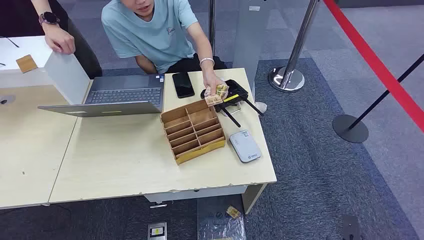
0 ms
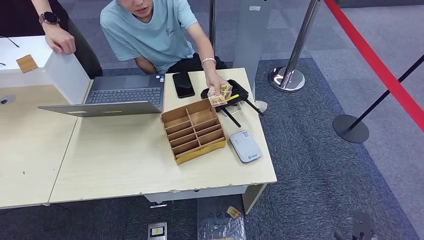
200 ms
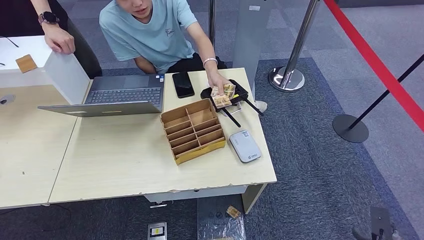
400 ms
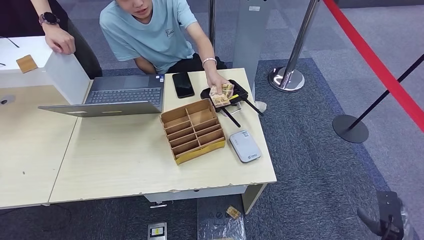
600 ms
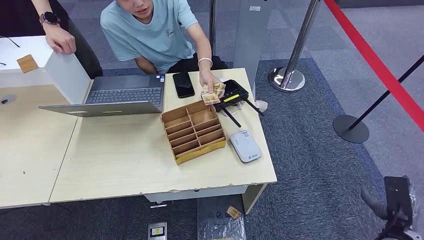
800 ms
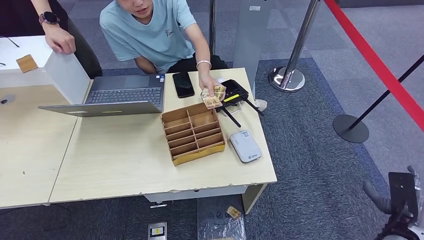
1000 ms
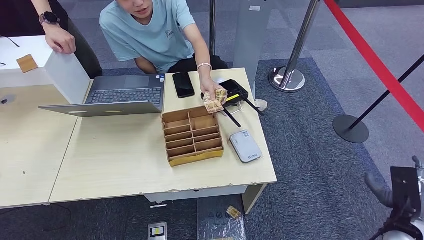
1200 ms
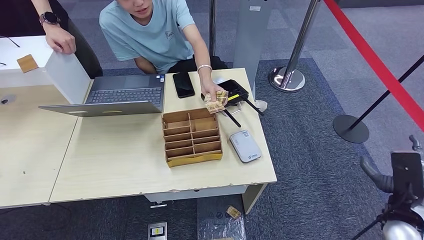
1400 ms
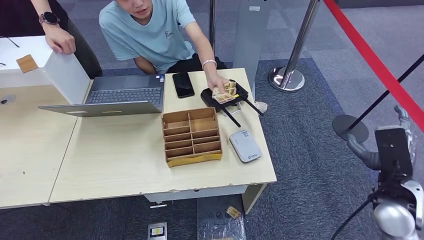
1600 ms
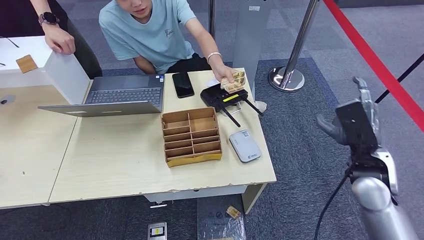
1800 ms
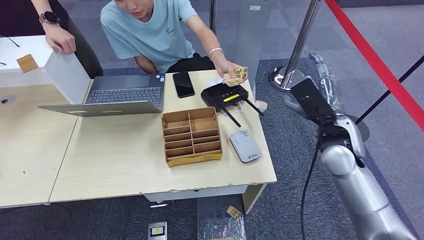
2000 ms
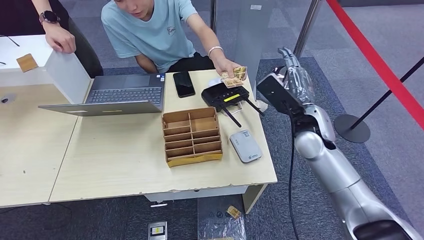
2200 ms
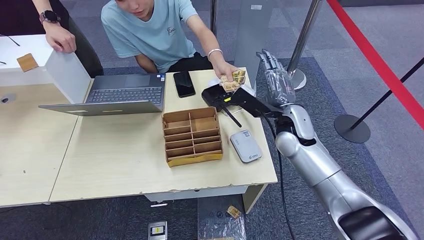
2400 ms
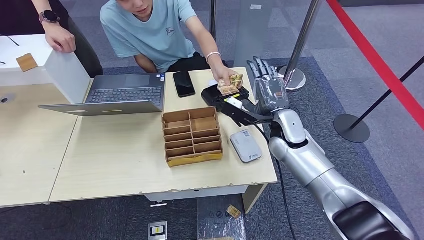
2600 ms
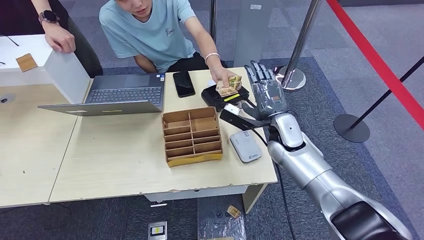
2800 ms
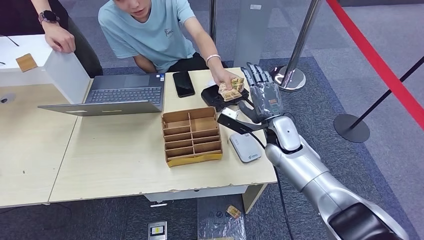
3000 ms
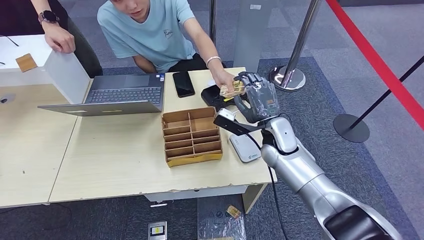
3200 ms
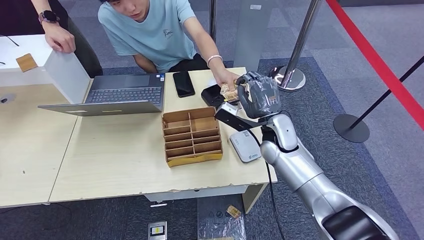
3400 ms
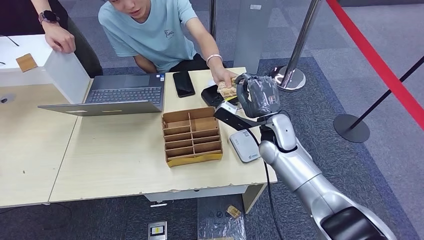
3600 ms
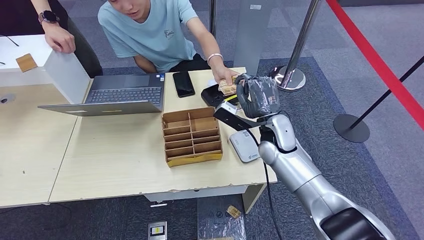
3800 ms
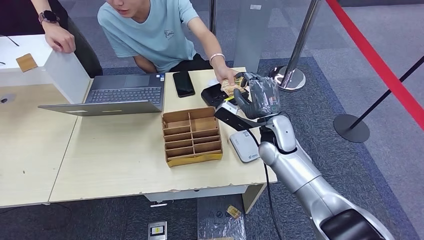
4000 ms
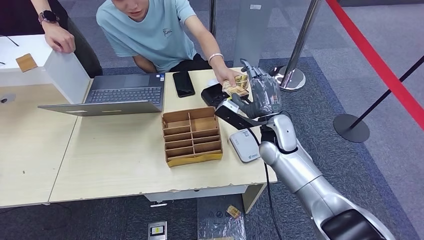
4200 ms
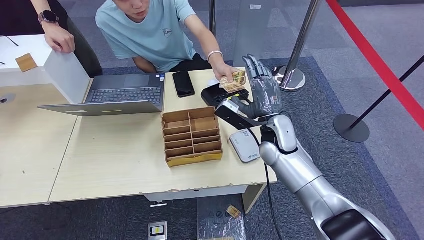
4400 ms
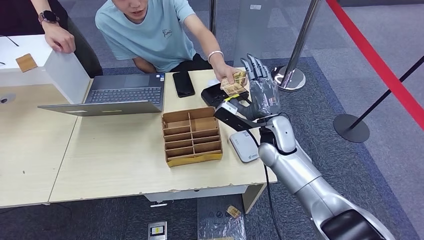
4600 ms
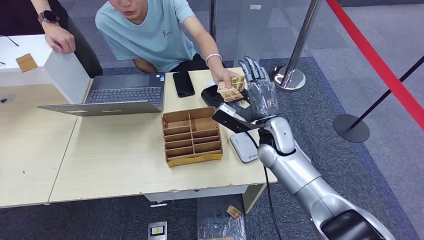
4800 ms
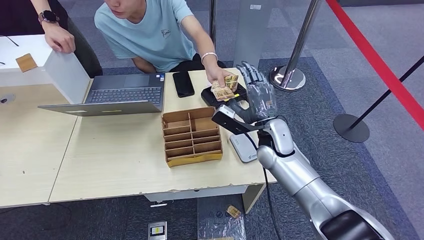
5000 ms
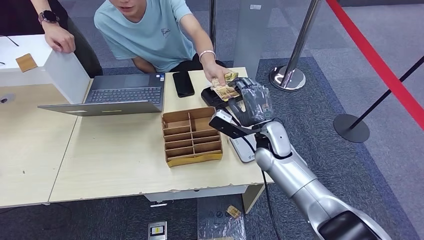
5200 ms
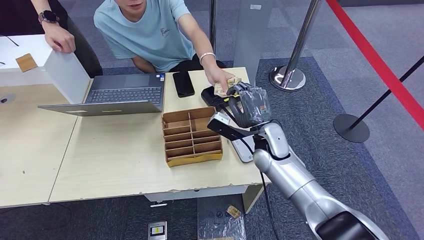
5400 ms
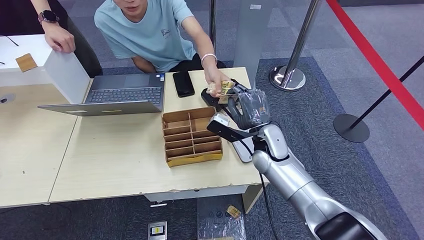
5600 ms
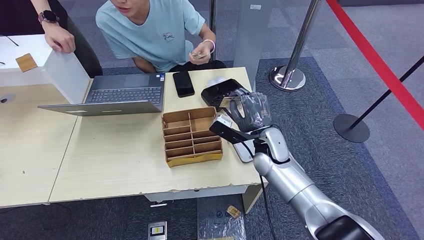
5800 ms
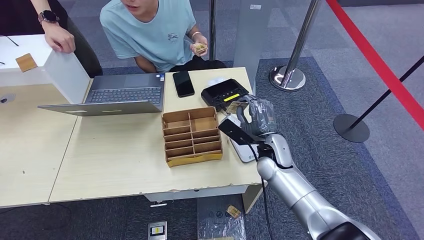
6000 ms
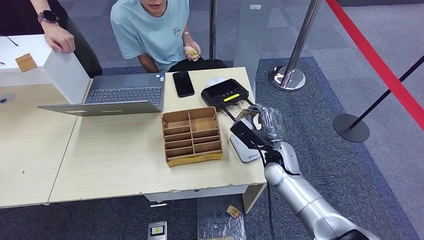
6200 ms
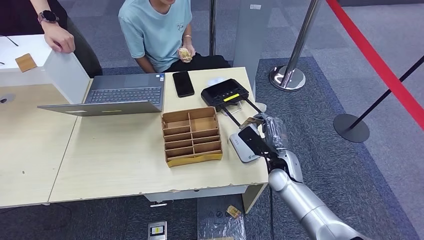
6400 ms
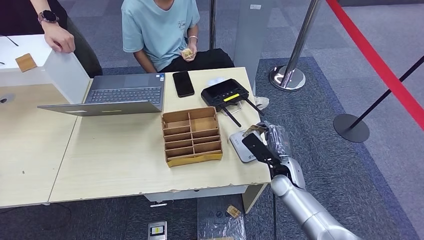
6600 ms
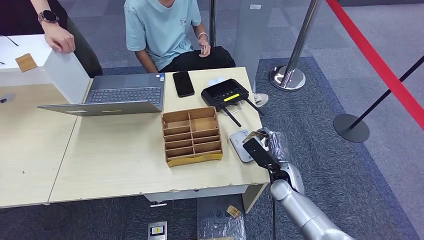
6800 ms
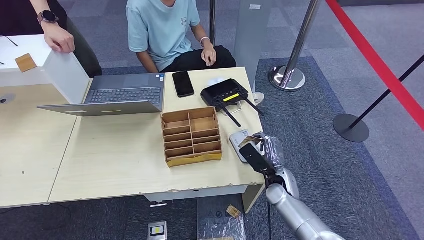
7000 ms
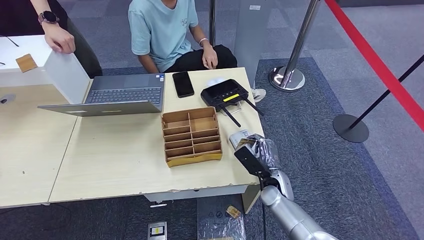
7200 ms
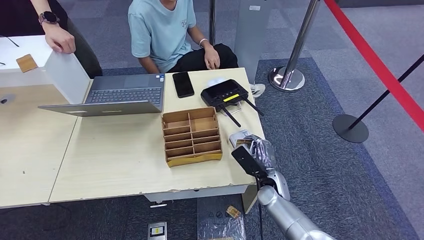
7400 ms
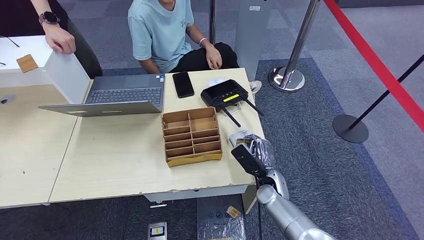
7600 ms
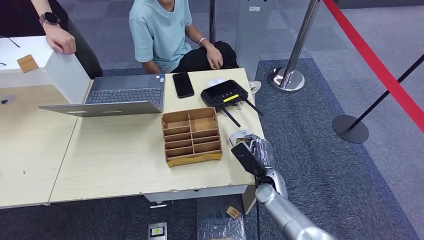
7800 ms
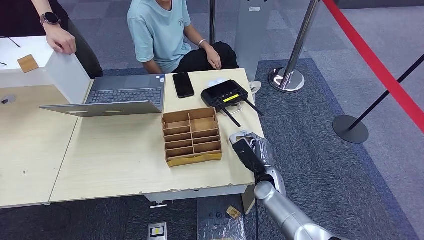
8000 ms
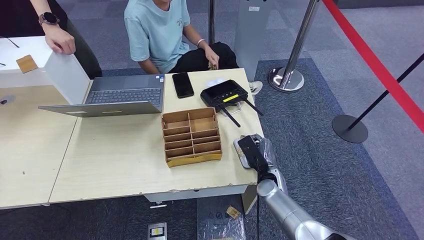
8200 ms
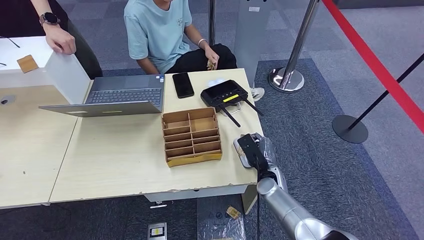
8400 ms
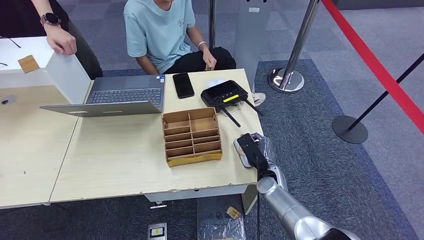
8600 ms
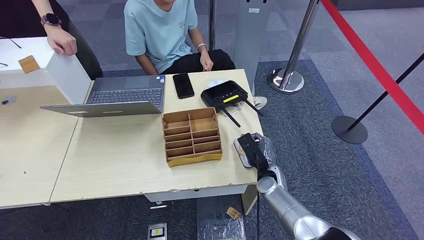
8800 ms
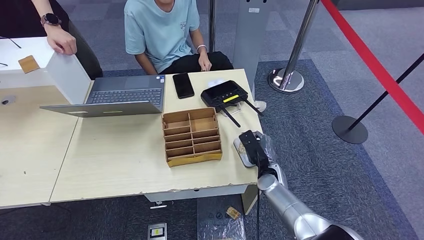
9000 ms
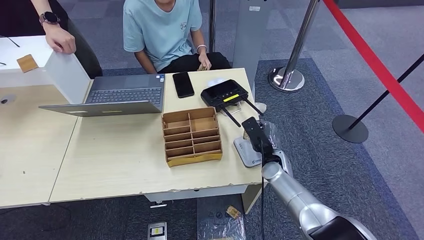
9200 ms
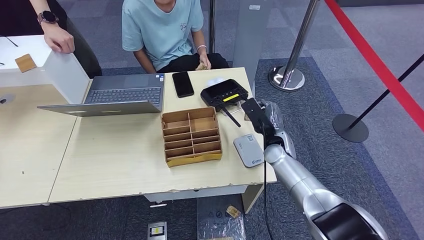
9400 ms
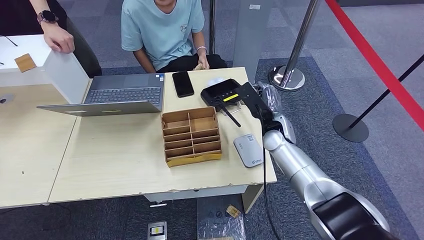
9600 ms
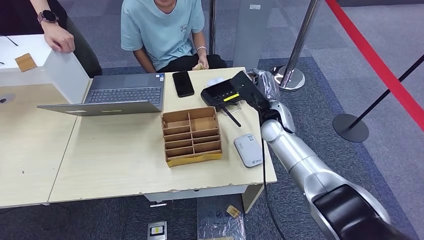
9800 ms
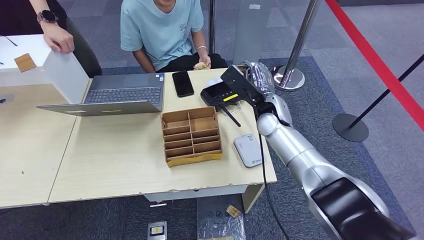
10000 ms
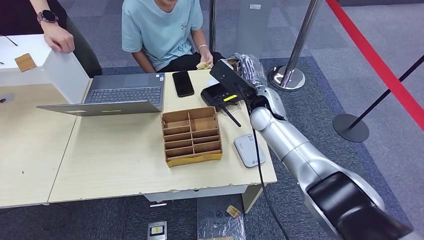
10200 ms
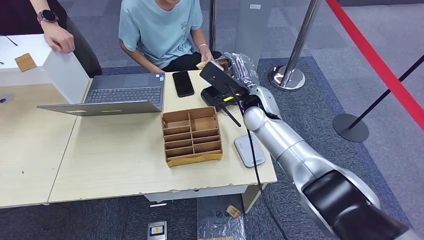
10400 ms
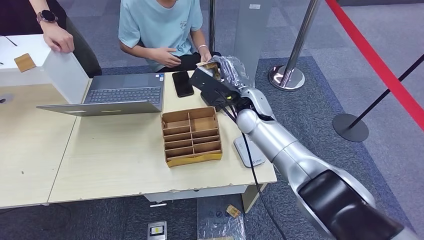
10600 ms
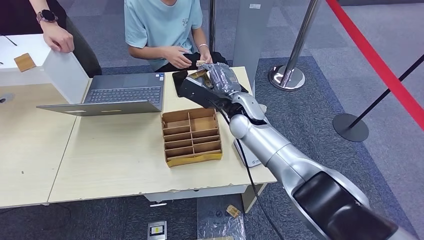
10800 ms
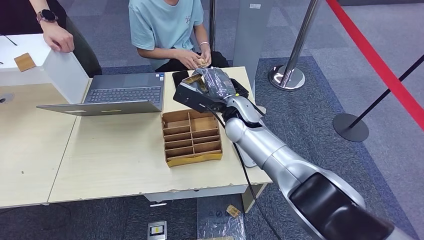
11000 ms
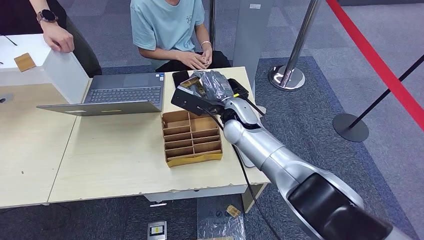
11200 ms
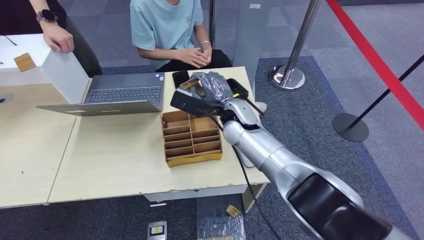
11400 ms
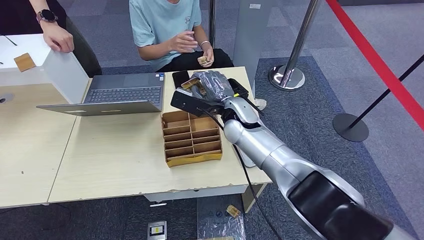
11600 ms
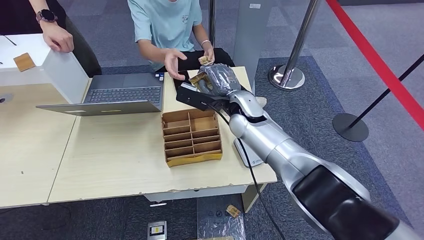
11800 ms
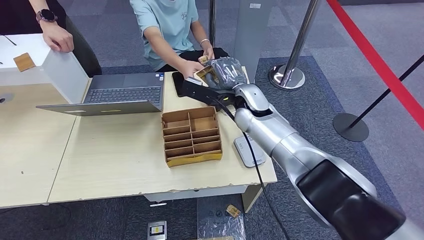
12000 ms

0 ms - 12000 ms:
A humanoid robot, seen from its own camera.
Step, 0 ms - 5800 ms: Take the ID card from the person's hand.
Step, 6000 ms - 8800 ms: Place the ID card on the card reader.
1600 ms - 3000 ms: The right hand is displaced forward and to the left by approximately 25 cm.
3000 ms - 4400 ms: The hands move only a little.
4400 ms - 6000 ms: The right hand goes some 5 cm downward.
6000 ms - 7600 ms: The right hand travels downward and backward by approximately 15 cm.
7600 ms - 9000 ms: The hands stay close to where they were, moving slightly.

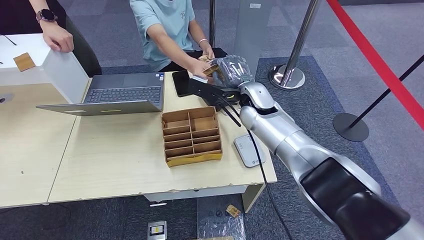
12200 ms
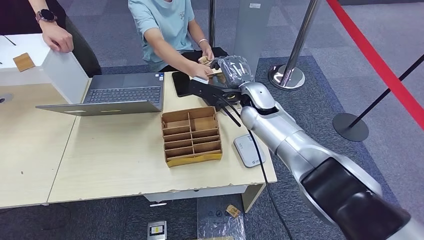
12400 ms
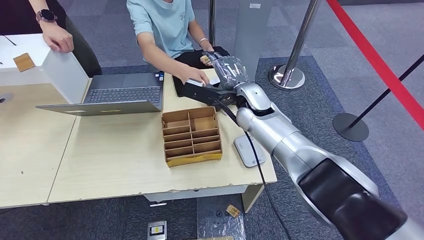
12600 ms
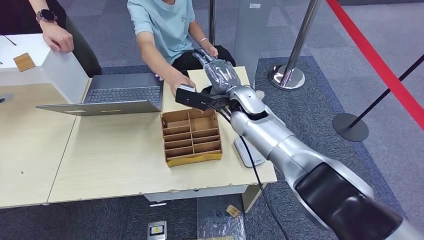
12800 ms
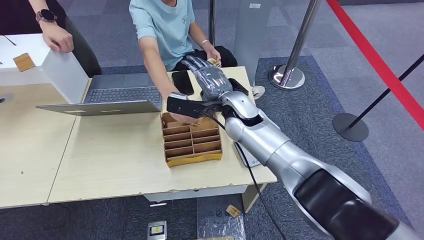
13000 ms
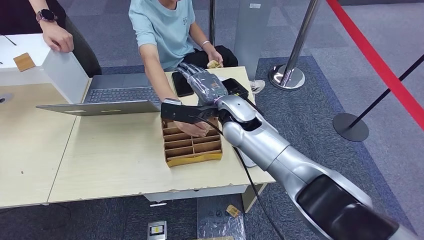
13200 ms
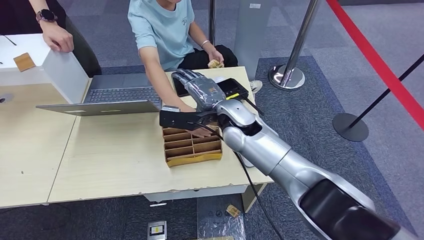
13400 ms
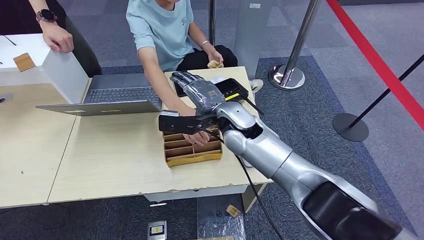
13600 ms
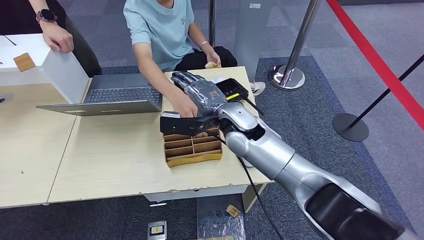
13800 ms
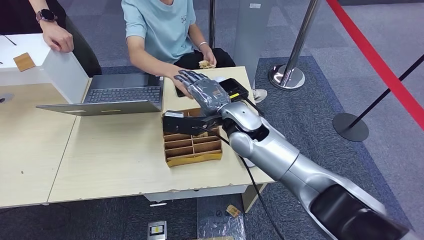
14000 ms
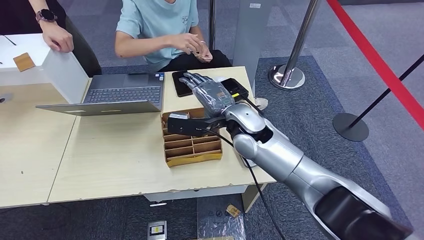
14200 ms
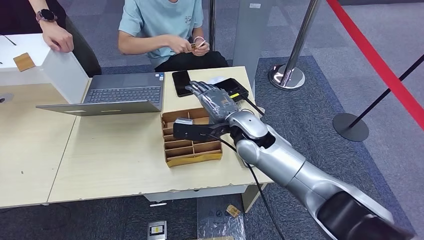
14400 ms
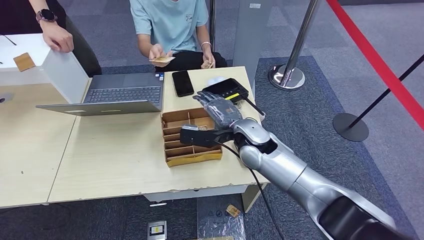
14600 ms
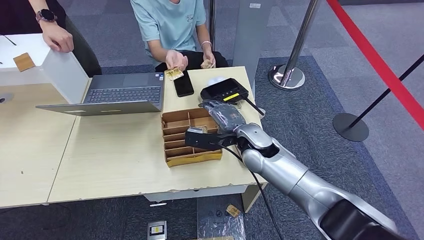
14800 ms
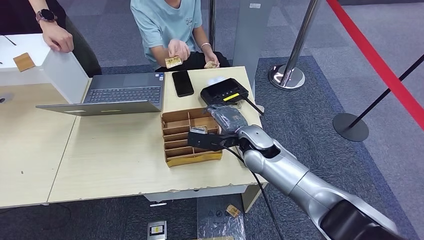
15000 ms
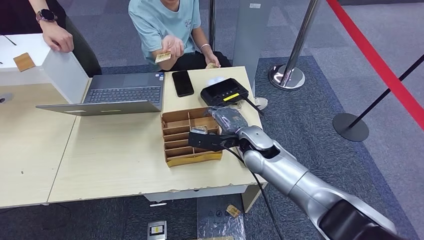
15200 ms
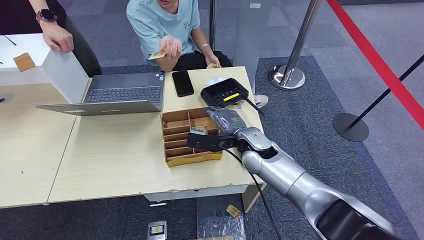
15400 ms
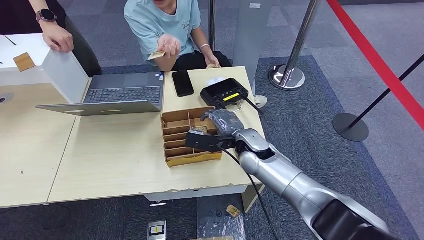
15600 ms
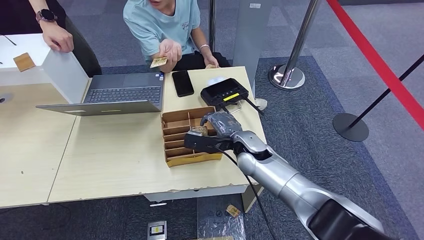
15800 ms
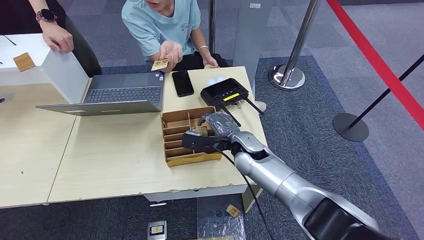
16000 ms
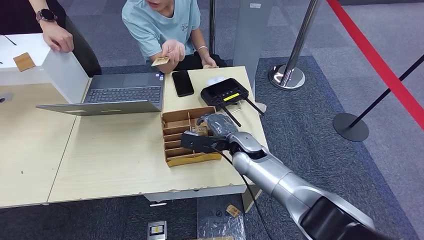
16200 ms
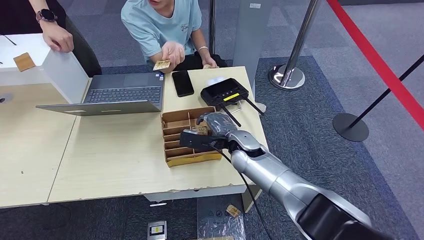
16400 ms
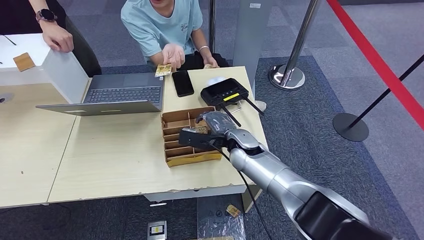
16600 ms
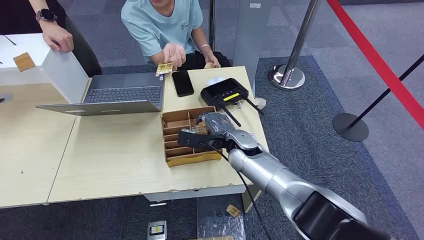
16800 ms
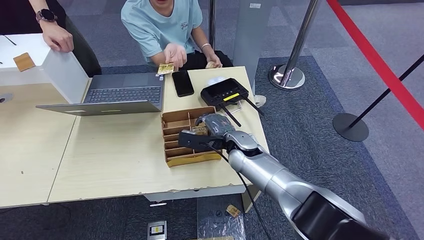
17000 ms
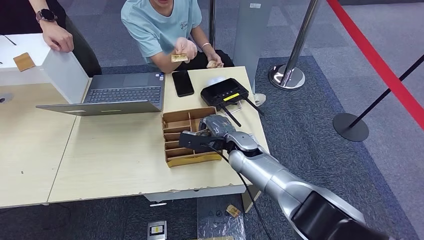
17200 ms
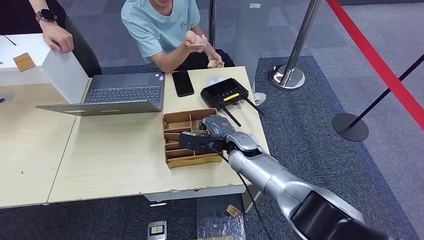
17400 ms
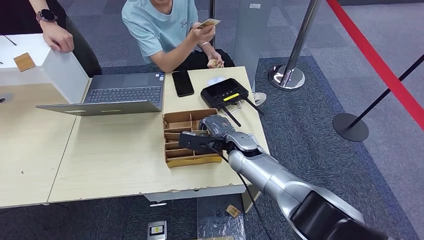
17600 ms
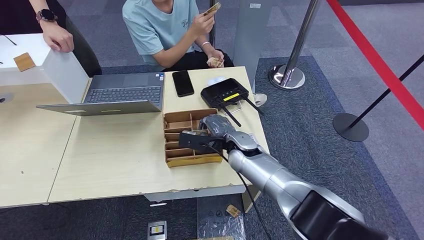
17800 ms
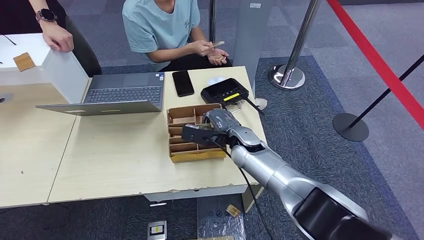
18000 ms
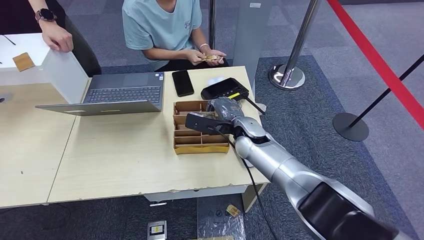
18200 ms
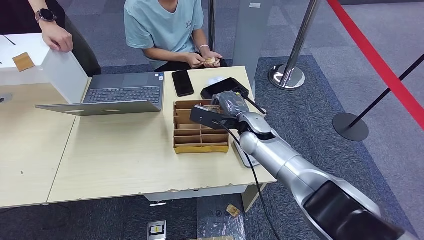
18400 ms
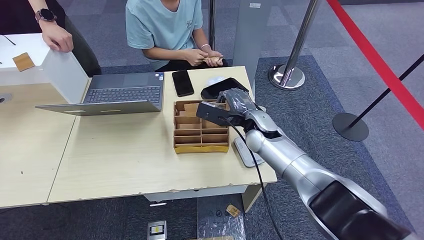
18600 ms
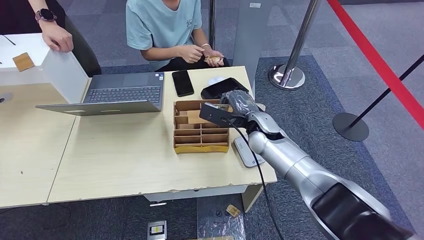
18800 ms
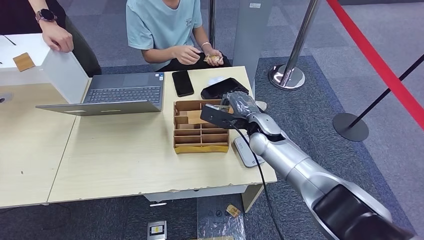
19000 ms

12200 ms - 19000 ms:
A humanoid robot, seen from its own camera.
Step, 14000 ms - 18800 ms: Pick up the room key from the key card box.
12200 ms - 13600 ms: The right hand travels backward and to the left by roughly 10 cm.
13600 ms - 15000 ms: The right hand travels downward and to the right by approximately 10 cm.
15000 ms - 17600 ms: The hands stay close to where they were, moving slightly.
17600 ms - 19000 ms: The right hand shifts approximately 5 cm to the right.
